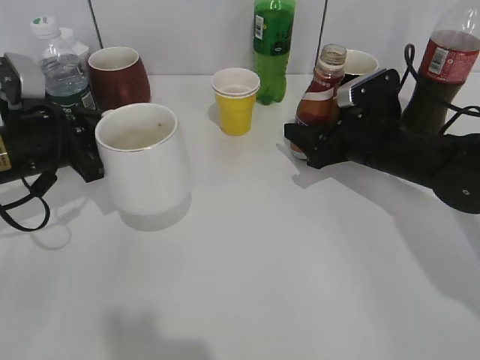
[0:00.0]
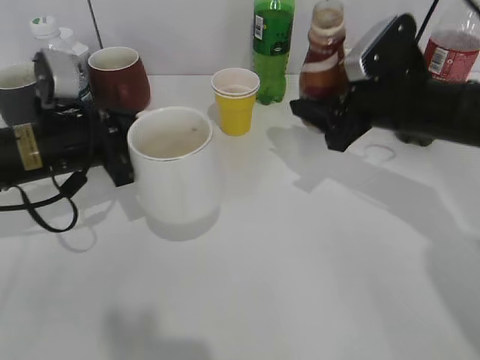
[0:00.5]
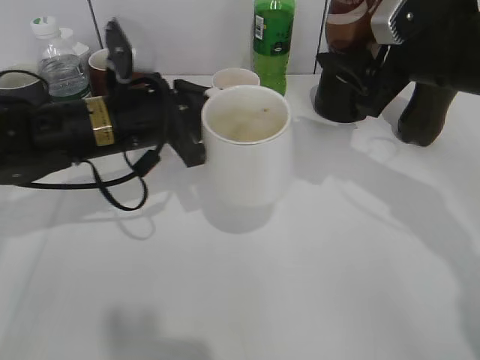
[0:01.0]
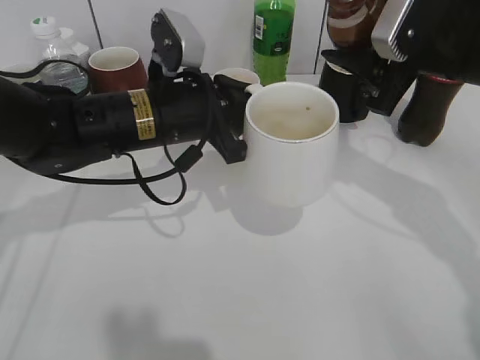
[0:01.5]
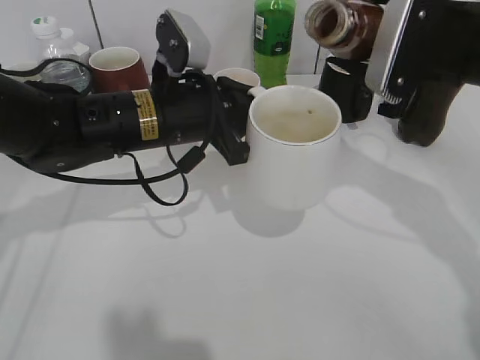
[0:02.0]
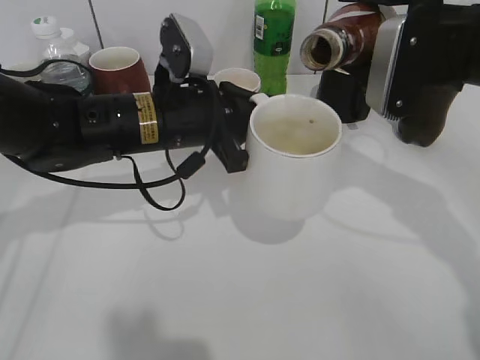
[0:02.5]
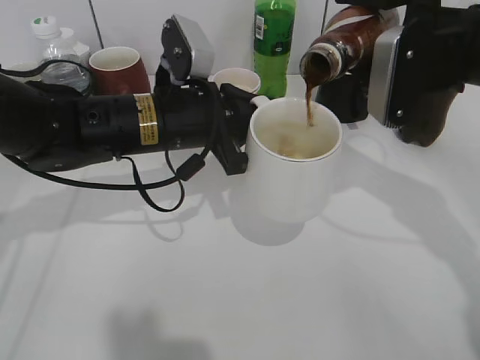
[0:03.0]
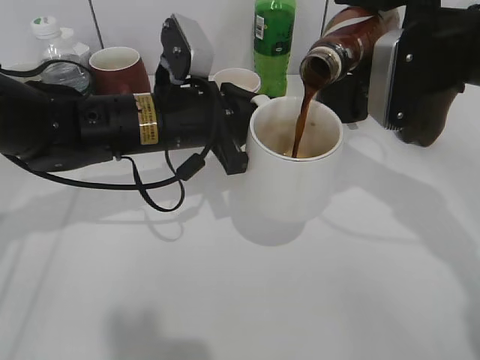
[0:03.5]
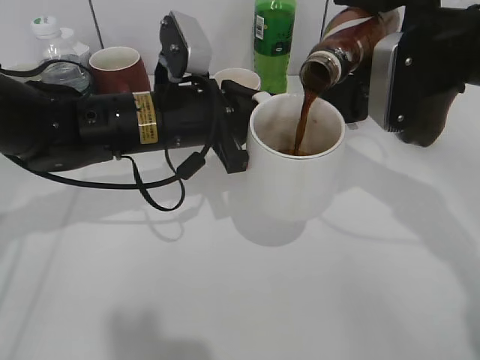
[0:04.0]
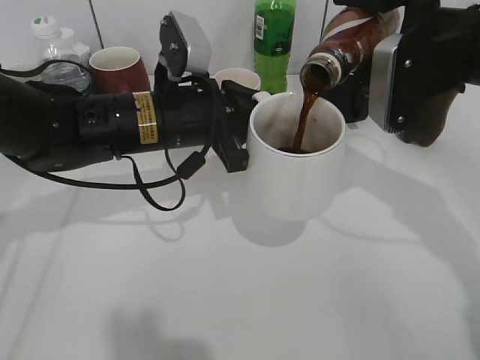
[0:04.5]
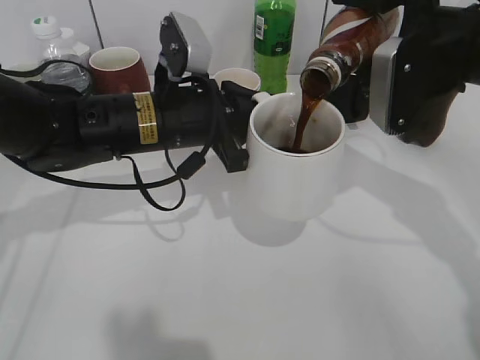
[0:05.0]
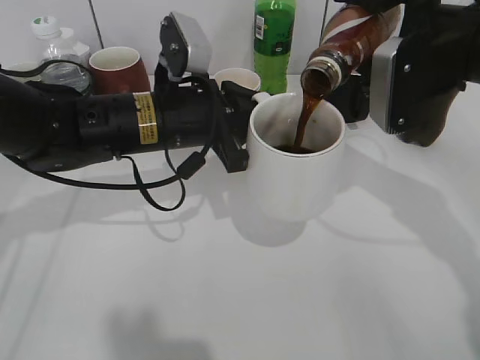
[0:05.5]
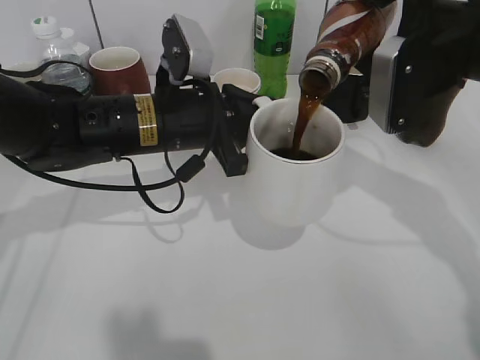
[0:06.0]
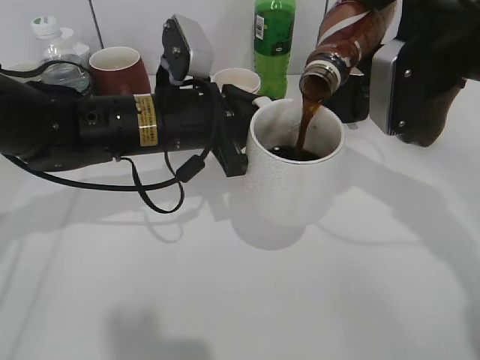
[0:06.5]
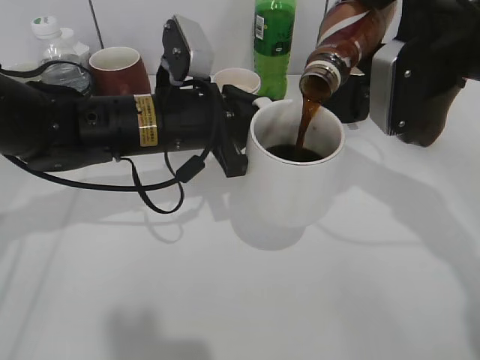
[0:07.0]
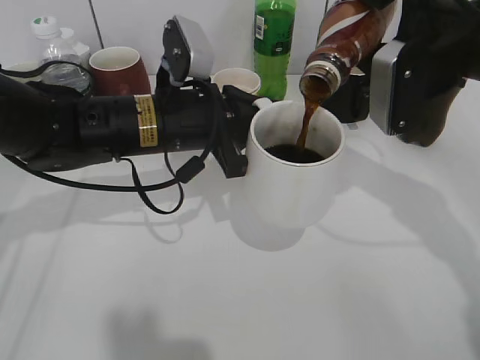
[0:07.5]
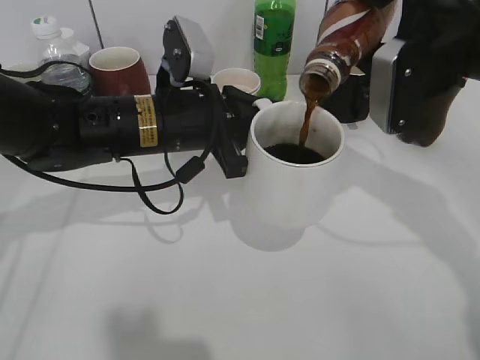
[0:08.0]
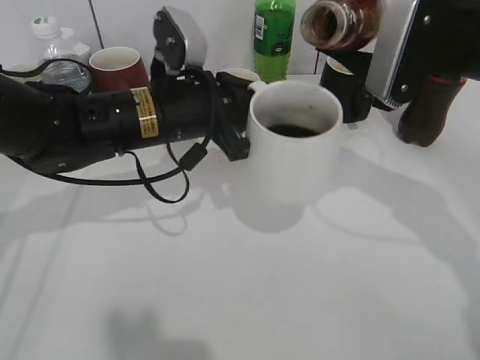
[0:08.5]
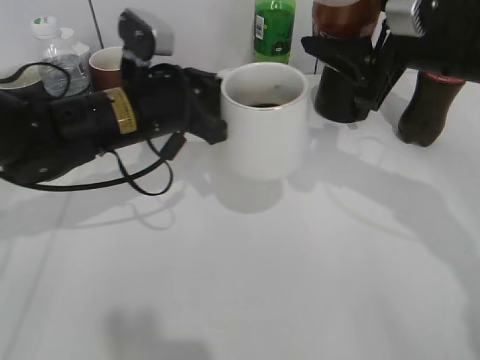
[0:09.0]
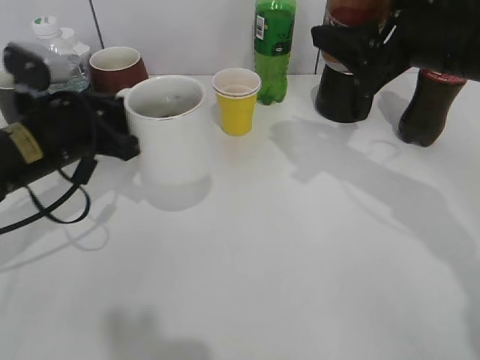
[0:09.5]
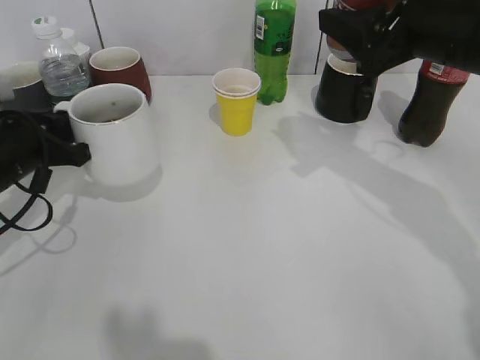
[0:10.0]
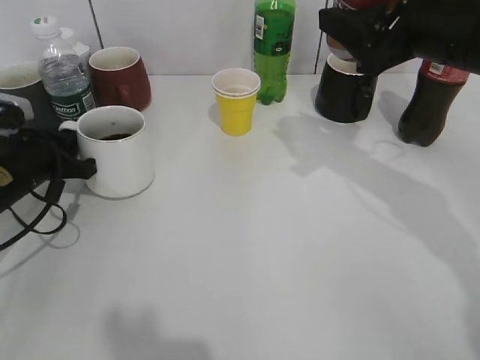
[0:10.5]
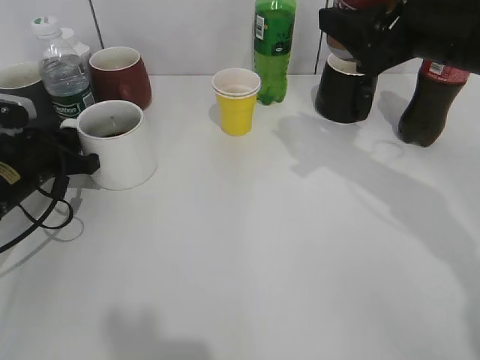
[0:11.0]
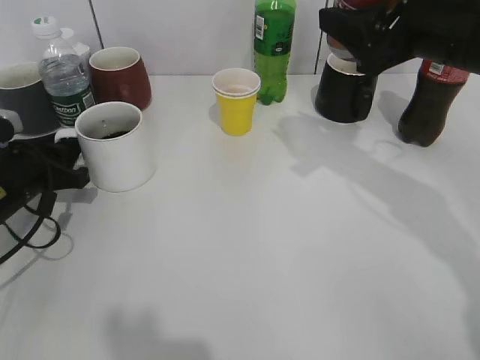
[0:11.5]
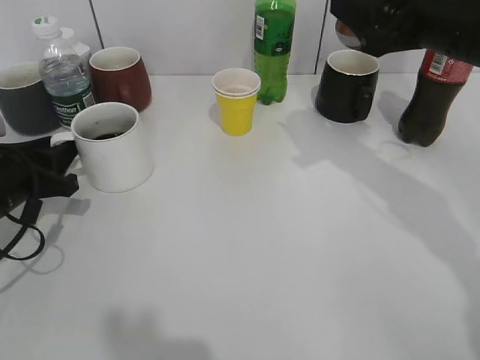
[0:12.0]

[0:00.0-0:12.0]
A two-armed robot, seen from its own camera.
Step, 0:00.0 to 0:08.5: Pour the coffee from bottle to cup with right gripper.
0:00.0 to 0:02.0: The left gripper moves to the right, roughly 15 cm. Meanwhile the right gripper is displaced upward by roughly 15 cm.
0:04.0 to 0:06.0: The grippers make only small movements.
0:06.0 to 0:08.0: Both grippers stay about where they are.
0:08.0 to 0:10.0: The left gripper shifts roughly 20 cm to the left.
0:10.0 to 0:12.0: The left gripper opens up.

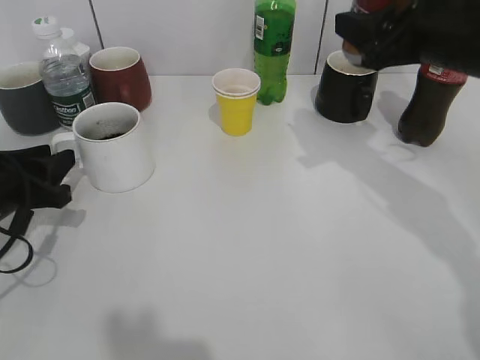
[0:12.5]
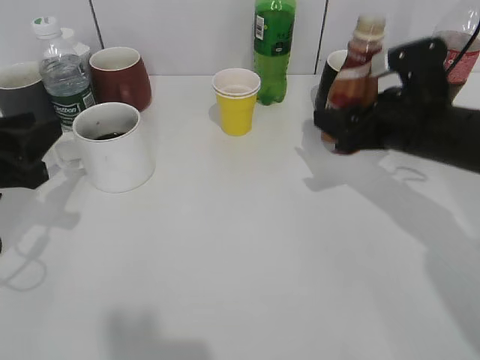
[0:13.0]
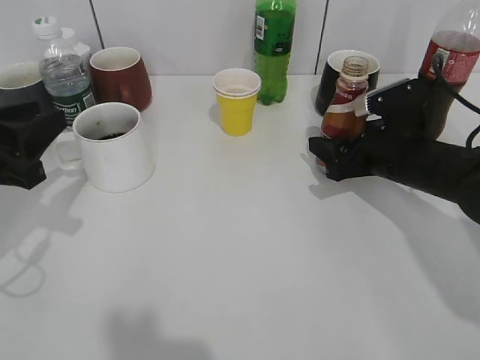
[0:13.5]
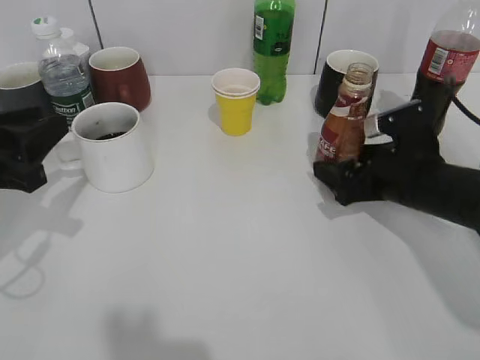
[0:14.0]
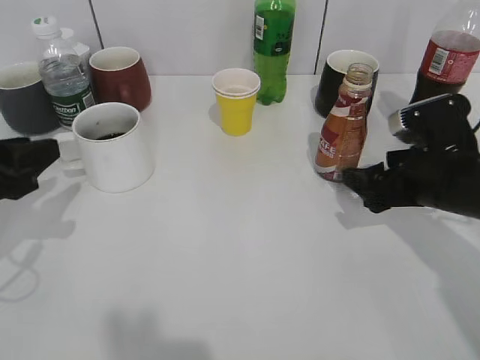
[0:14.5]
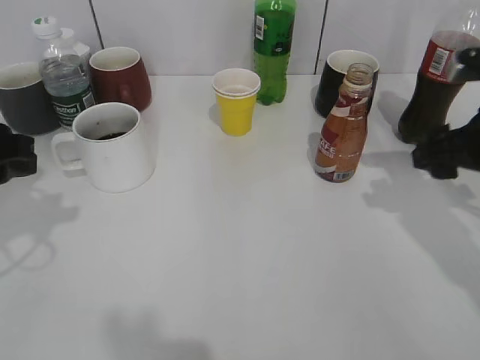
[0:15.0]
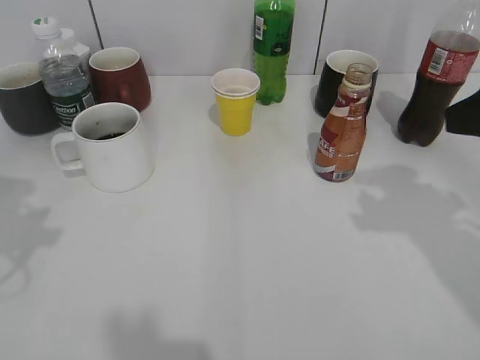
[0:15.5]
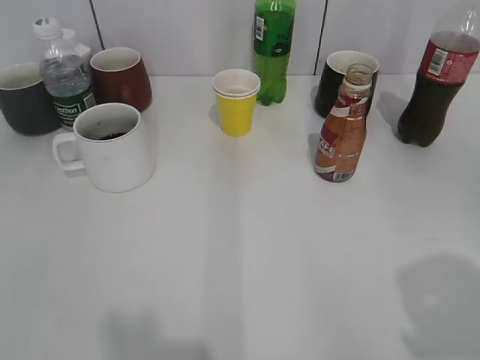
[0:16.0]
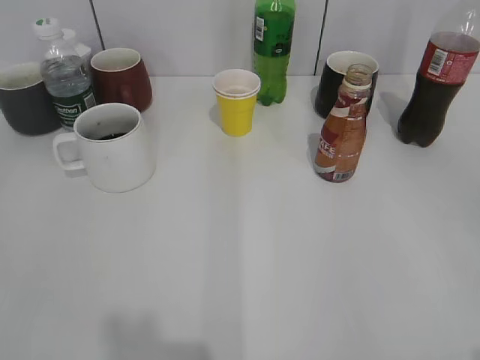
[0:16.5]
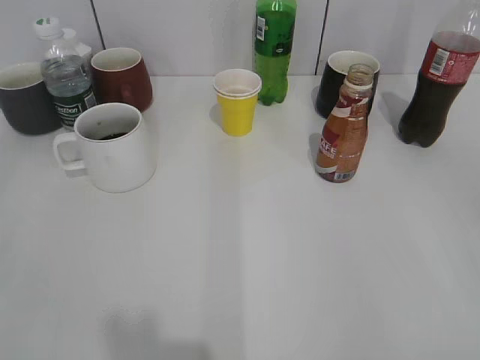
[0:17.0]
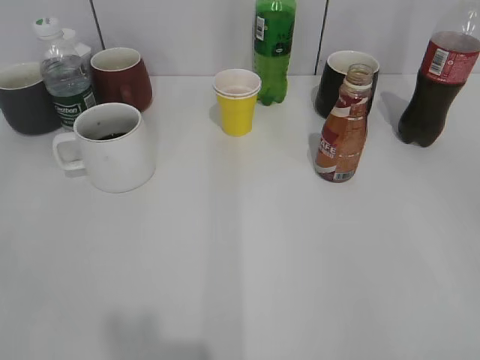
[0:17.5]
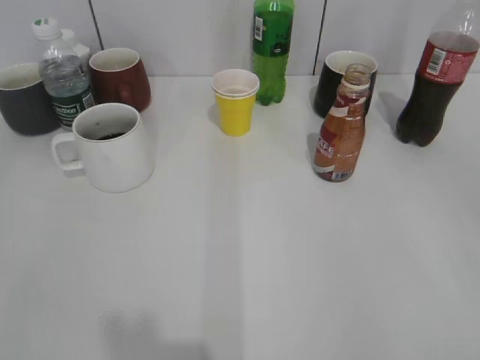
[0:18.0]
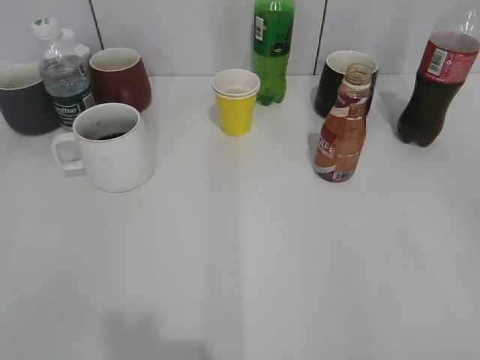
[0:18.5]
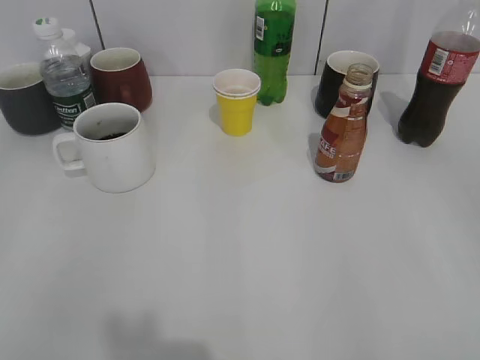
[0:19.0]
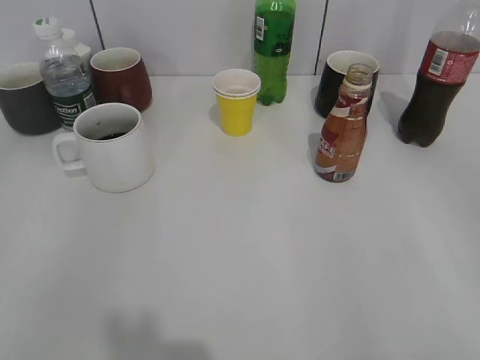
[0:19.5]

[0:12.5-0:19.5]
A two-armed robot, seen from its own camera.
Step, 0:12.5 to 0:14.0: Place the coffee bottle on the table with right gripper.
0:12.5 to 0:14.5: The right gripper travels downward by about 15 cm, and opens its fingers, while the left gripper is displaced upward by roughly 5 cm.
0:14.5 to 0:16.0: The right gripper shifts roughly 25 cm backward and upward, and closes its fingers. Meanwhile the left gripper heads upward and backward, covering roughly 20 cm.
0:16.0 to 0:17.5: The right gripper is displaced backward by some 10 cm.
